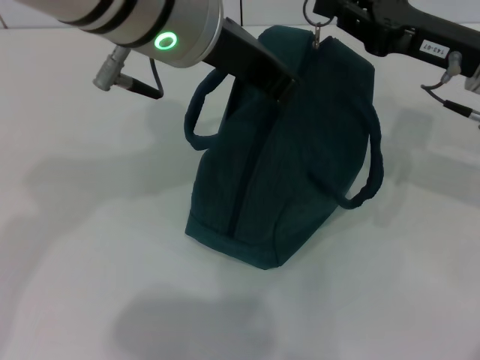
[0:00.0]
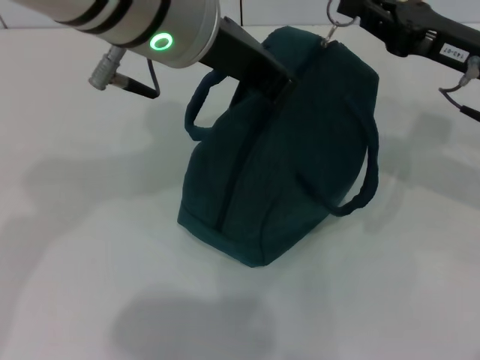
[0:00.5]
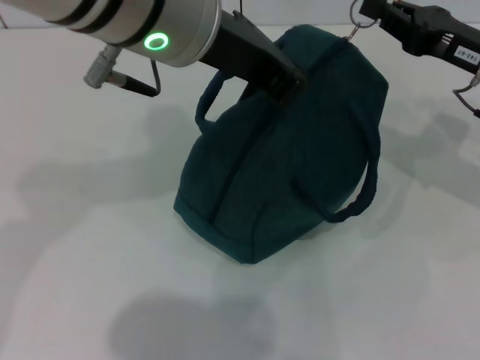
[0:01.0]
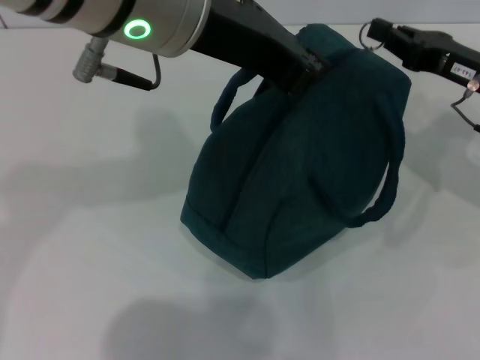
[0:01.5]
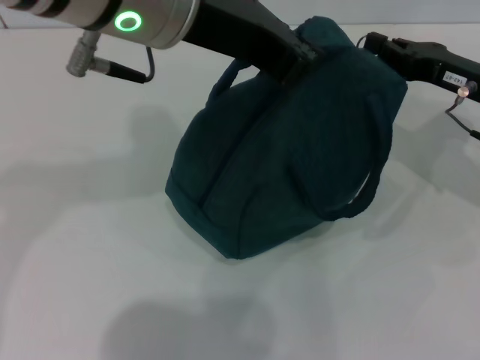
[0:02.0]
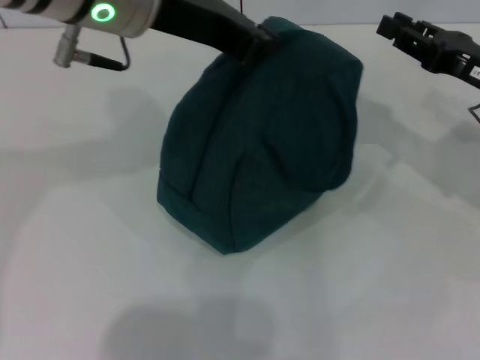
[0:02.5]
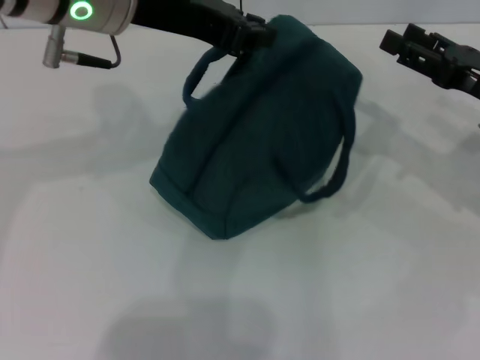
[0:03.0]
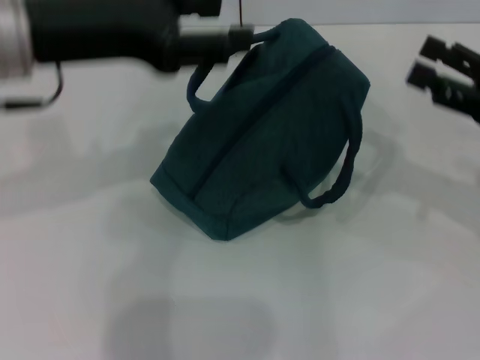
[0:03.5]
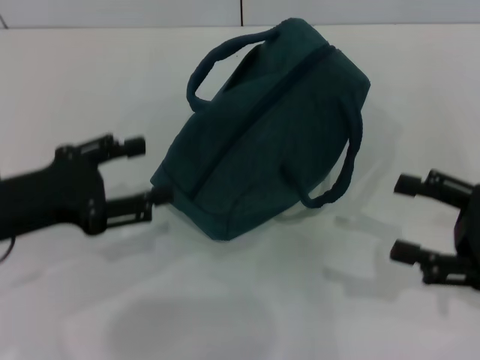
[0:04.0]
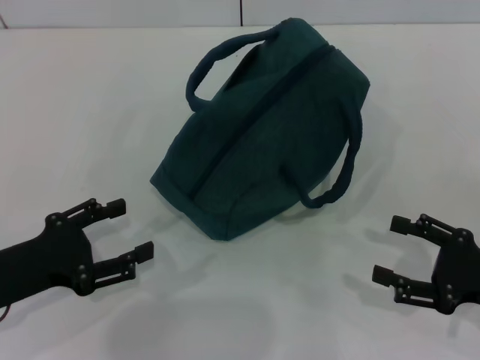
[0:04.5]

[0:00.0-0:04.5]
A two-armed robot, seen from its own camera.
Step, 0:00.0 to 0:02.5: Zip up the lunch bag with your right hand.
0:00.0 to 0:02.0: The right gripper ends up about 5 cm from where it was.
0:02.0 to 0:04.5: The right gripper shifts approximately 20 cm backward and downward, and opens up, while the left gripper travels downward, to the left and backward by roughly 35 cm, and opens.
